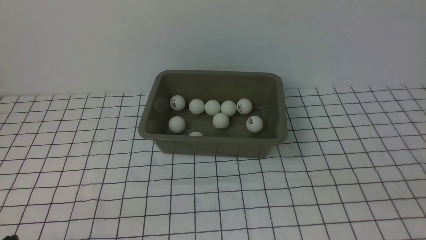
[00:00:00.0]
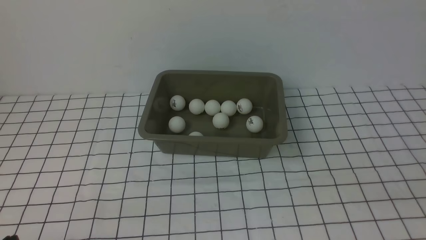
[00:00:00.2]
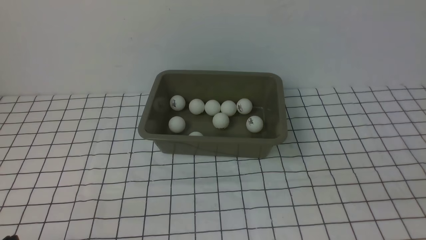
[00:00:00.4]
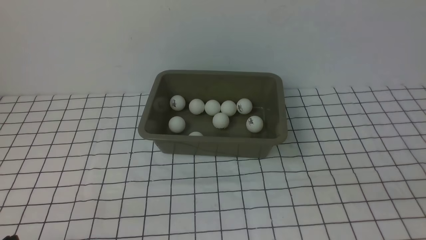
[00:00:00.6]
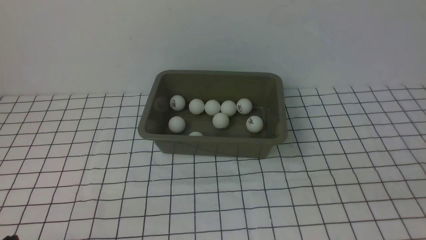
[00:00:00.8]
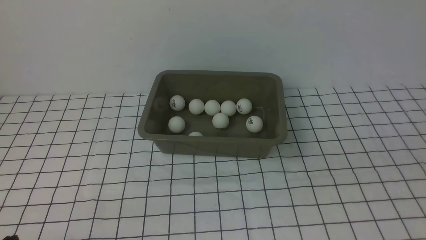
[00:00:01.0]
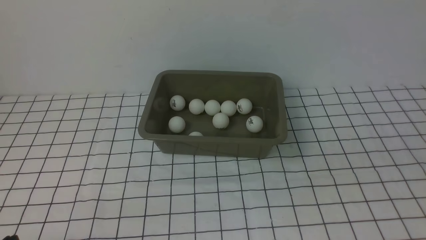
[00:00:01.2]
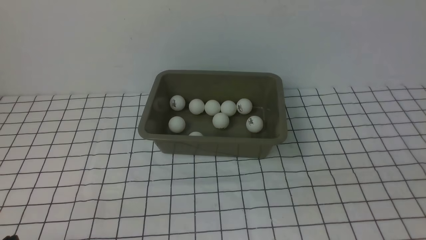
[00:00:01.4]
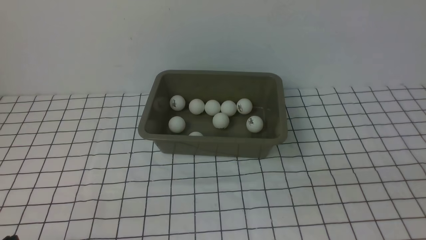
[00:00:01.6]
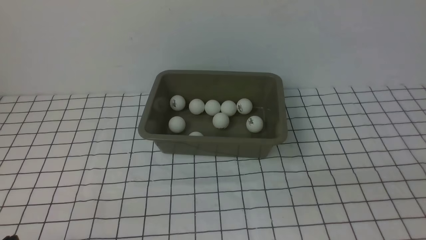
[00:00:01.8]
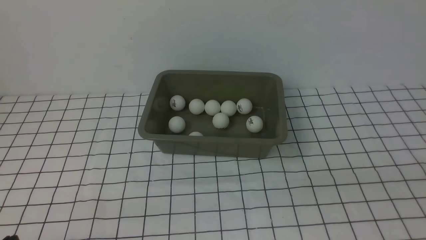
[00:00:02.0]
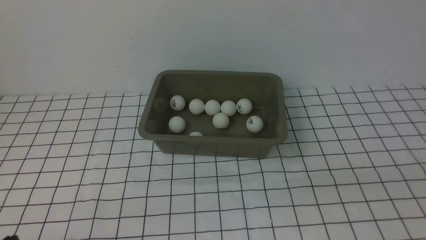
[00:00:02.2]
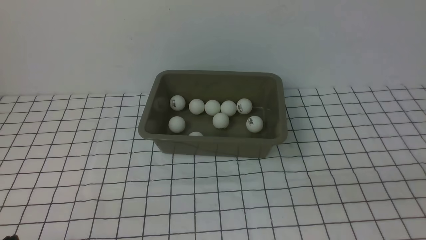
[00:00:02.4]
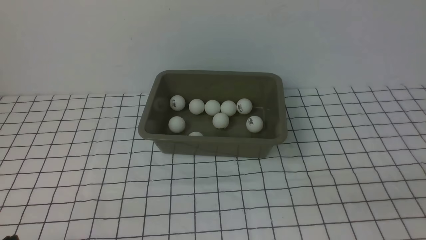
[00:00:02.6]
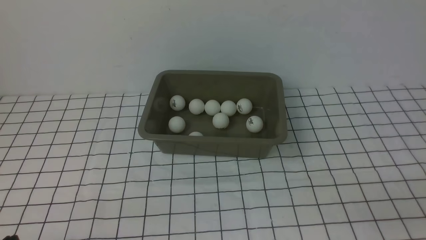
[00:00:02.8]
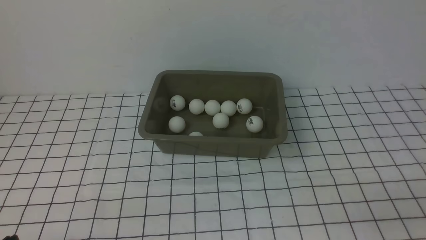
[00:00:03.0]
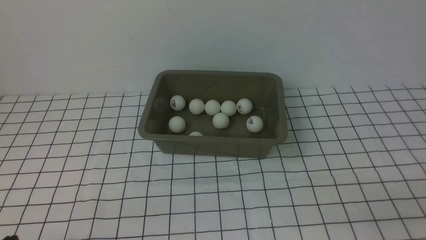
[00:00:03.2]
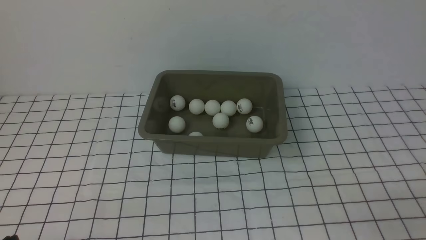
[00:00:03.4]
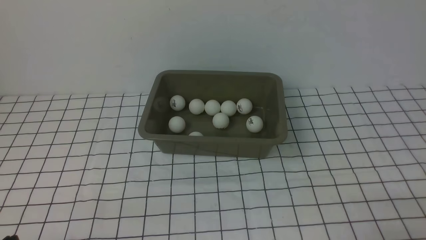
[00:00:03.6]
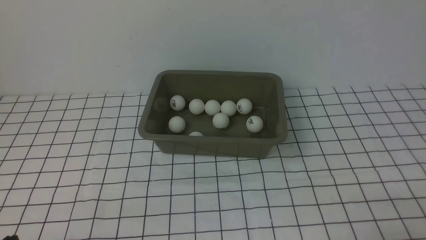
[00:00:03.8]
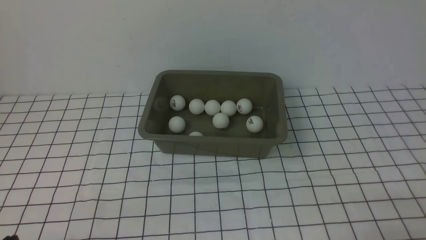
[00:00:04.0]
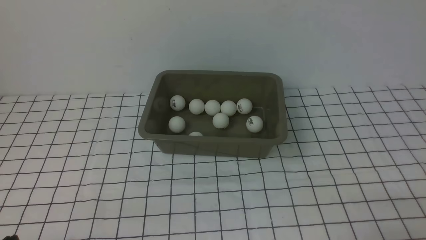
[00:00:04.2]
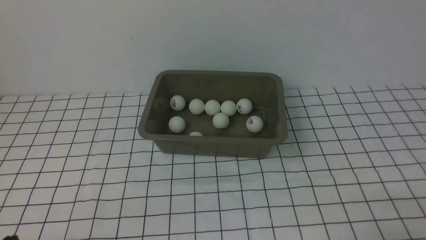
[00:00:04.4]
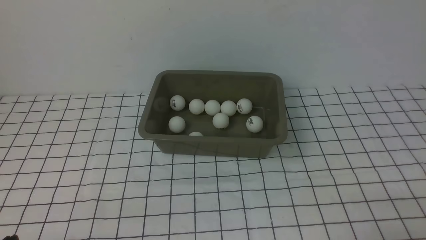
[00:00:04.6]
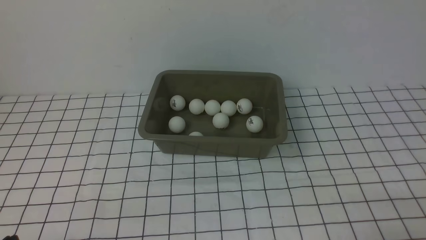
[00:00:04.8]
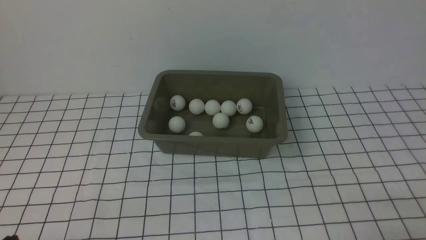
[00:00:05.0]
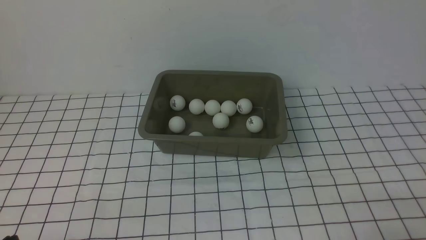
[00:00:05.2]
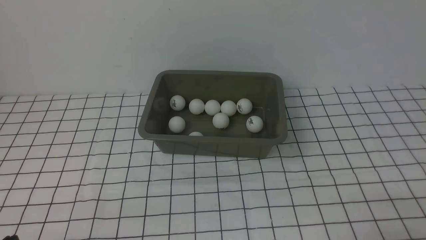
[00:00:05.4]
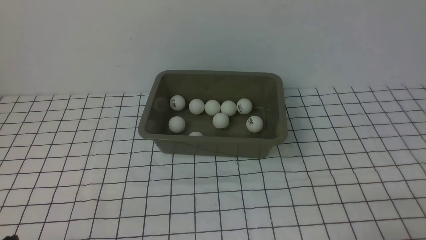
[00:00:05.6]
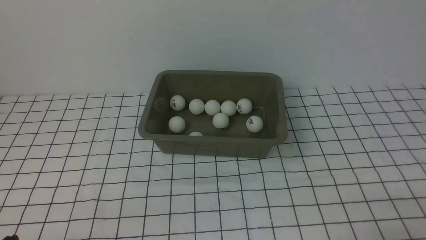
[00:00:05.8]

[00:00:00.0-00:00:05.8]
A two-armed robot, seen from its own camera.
00:00:04.4 to 00:00:05.8: Neither gripper changes place.
